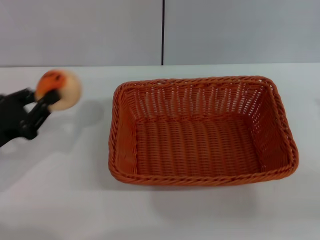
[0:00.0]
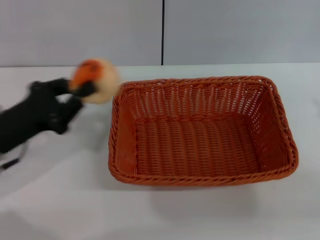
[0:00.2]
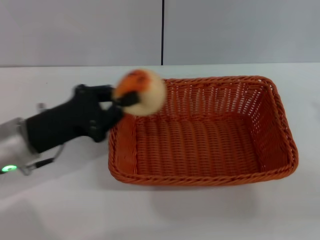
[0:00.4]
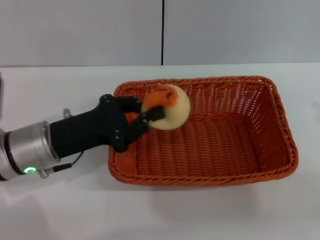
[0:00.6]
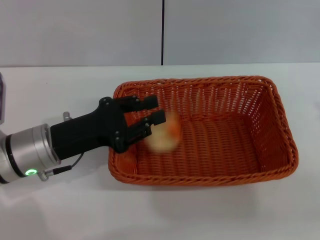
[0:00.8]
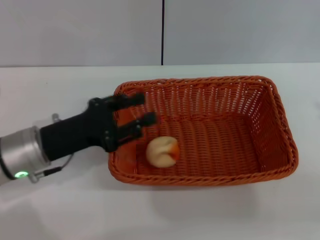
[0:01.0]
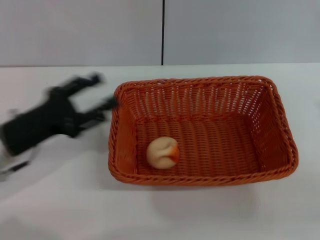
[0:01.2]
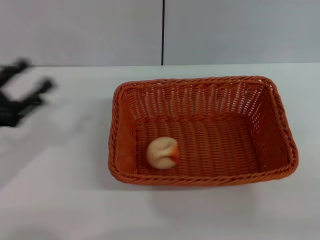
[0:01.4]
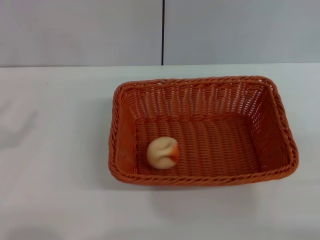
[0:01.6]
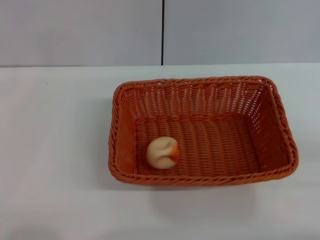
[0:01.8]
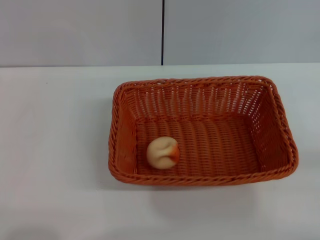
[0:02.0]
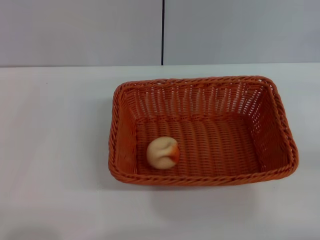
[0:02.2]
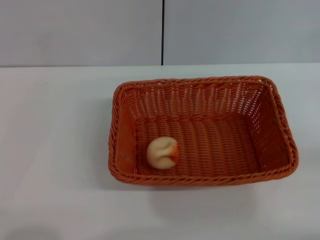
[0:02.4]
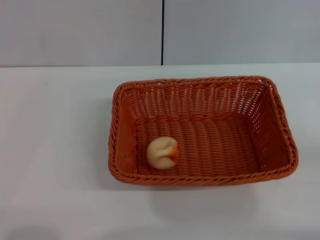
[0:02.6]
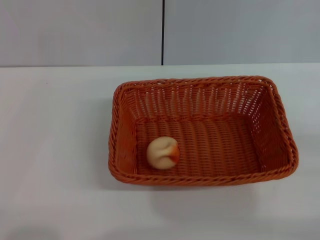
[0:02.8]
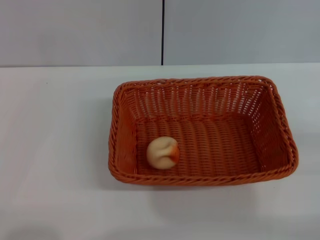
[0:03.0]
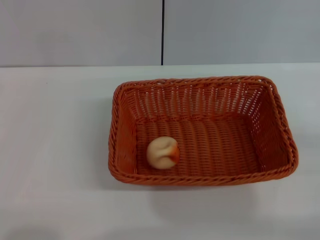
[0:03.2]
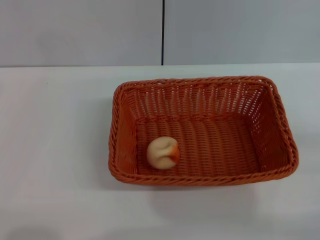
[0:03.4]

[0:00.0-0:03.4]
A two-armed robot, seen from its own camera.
Step, 0:00.0 to 0:01.0: Place the egg yolk pastry into the basket with the left gripper.
0:00.0 to 0:01.6: The left gripper goes to the right and returns, roughly 10 cm each way, and opens.
